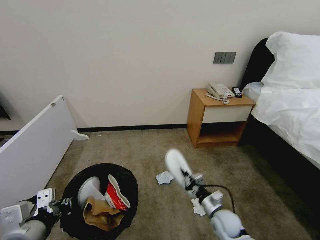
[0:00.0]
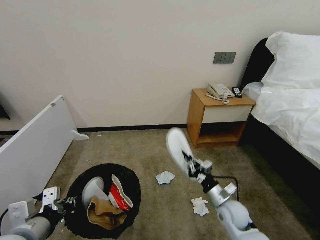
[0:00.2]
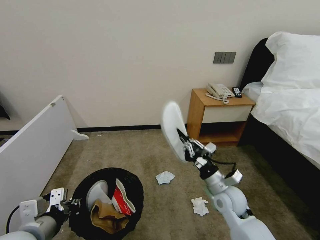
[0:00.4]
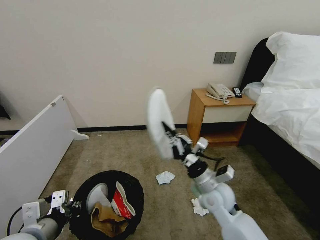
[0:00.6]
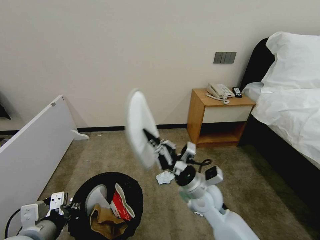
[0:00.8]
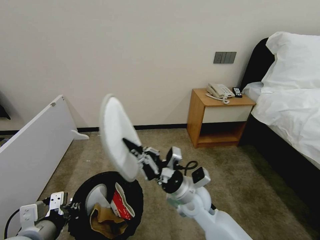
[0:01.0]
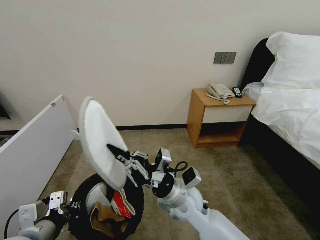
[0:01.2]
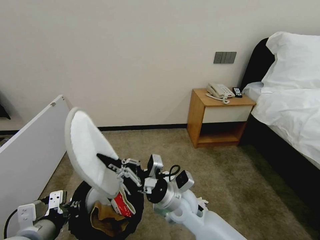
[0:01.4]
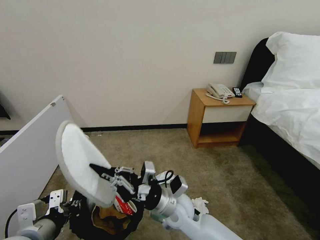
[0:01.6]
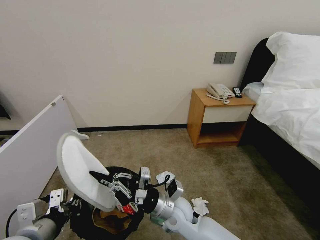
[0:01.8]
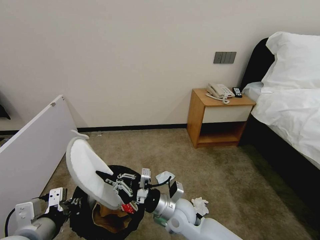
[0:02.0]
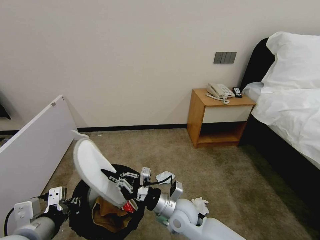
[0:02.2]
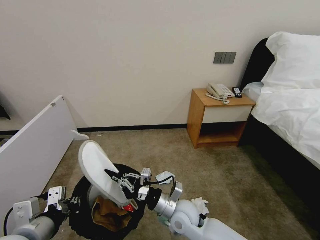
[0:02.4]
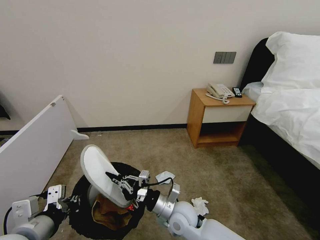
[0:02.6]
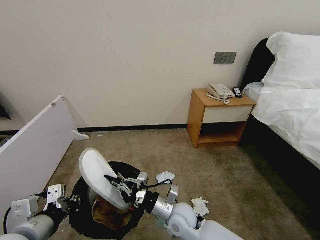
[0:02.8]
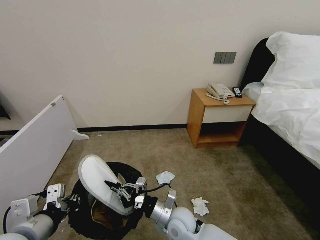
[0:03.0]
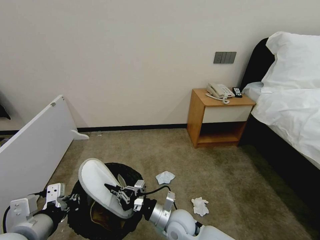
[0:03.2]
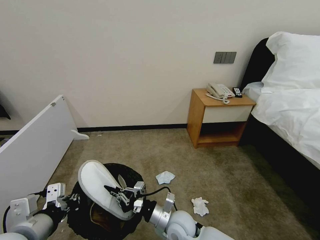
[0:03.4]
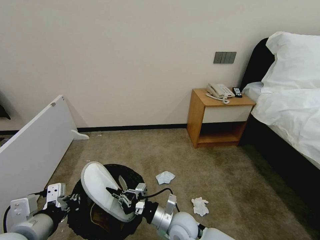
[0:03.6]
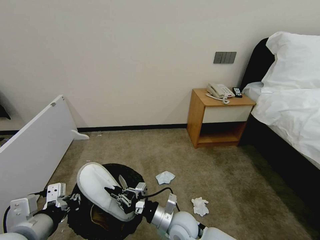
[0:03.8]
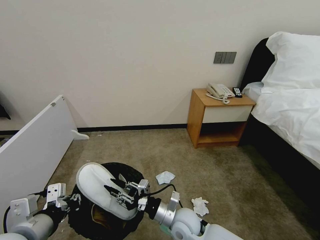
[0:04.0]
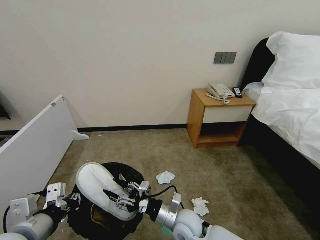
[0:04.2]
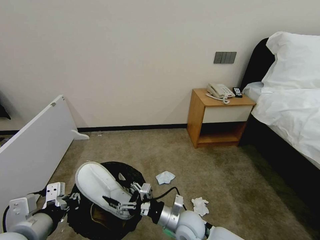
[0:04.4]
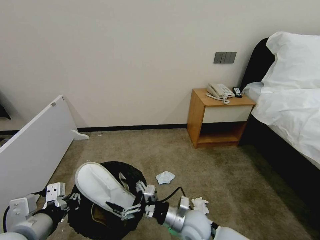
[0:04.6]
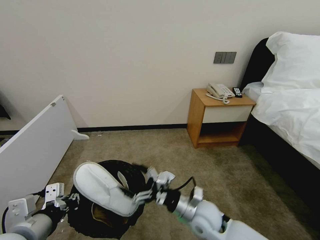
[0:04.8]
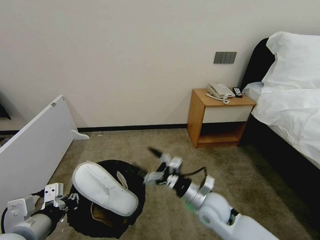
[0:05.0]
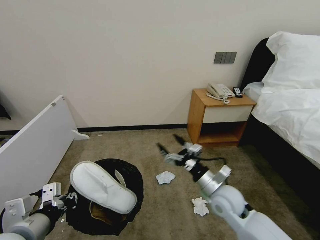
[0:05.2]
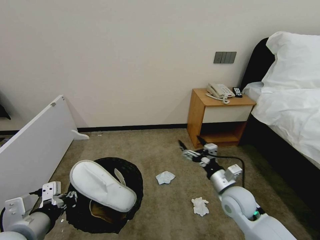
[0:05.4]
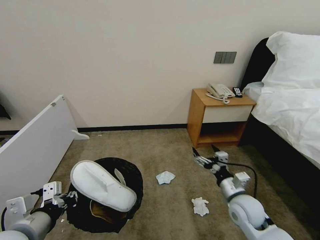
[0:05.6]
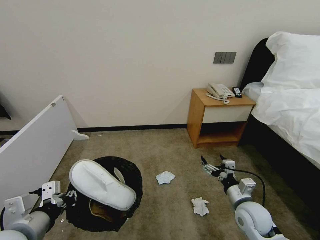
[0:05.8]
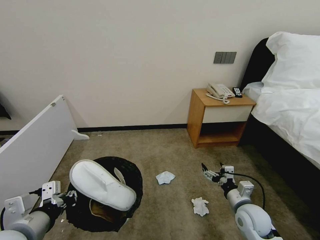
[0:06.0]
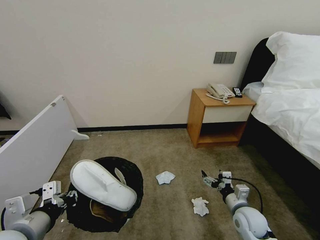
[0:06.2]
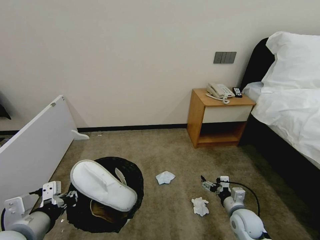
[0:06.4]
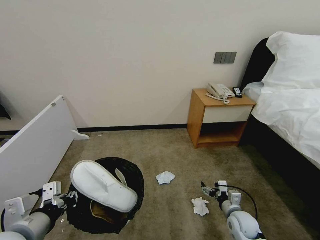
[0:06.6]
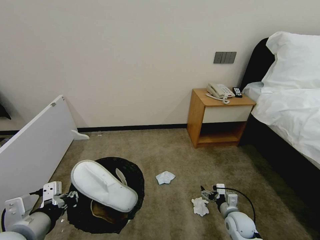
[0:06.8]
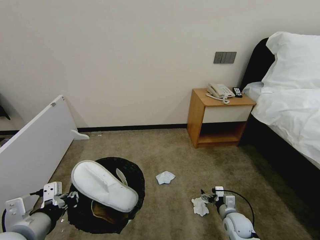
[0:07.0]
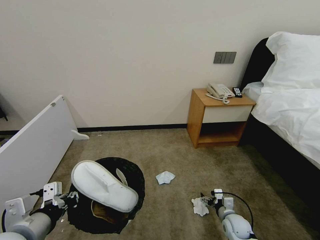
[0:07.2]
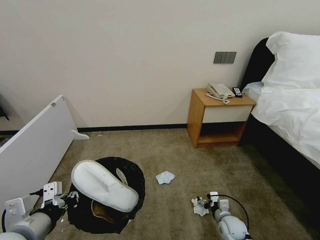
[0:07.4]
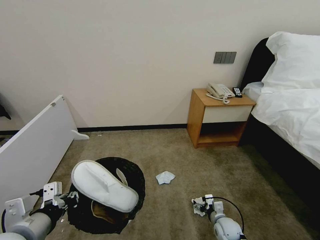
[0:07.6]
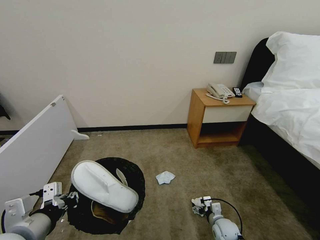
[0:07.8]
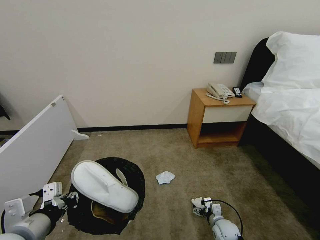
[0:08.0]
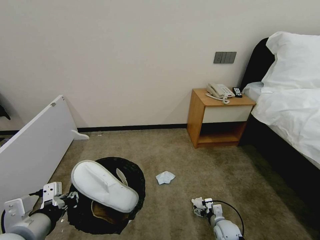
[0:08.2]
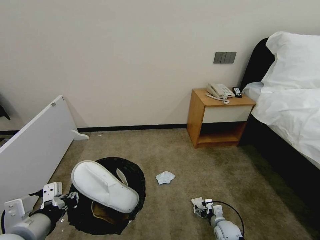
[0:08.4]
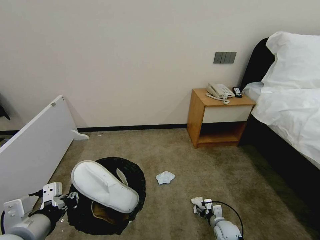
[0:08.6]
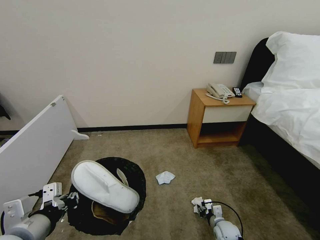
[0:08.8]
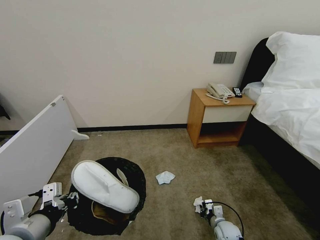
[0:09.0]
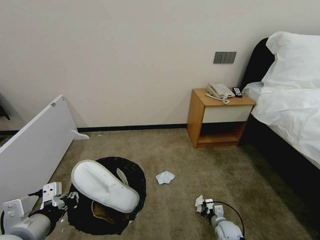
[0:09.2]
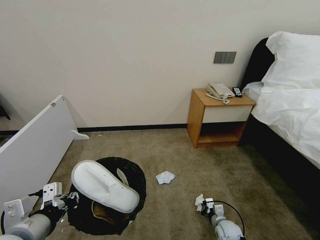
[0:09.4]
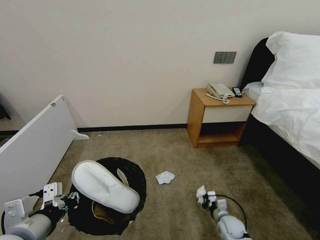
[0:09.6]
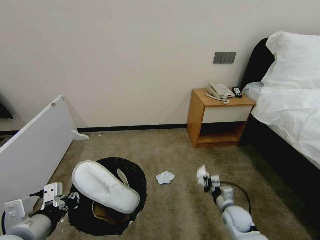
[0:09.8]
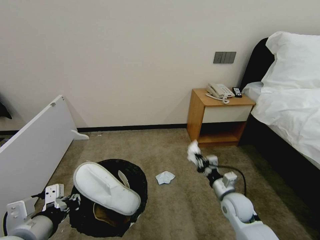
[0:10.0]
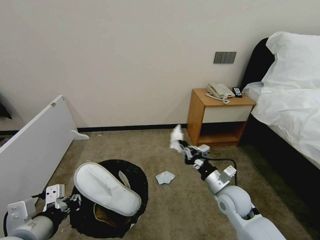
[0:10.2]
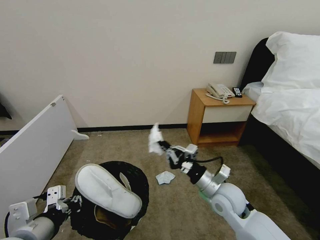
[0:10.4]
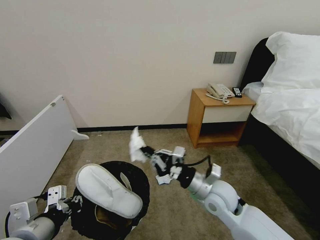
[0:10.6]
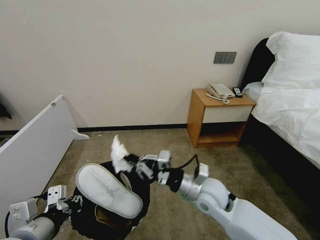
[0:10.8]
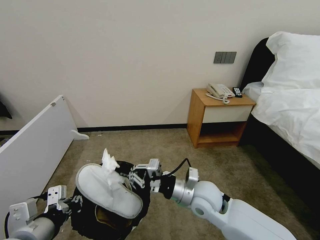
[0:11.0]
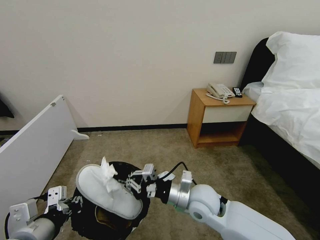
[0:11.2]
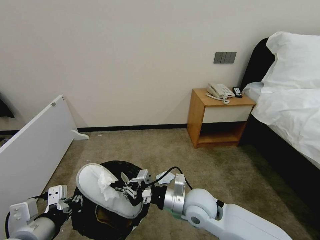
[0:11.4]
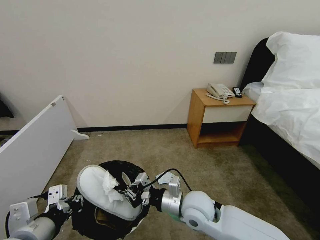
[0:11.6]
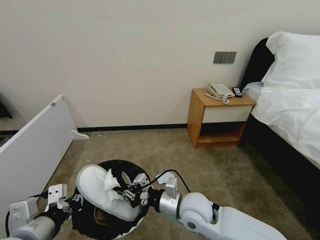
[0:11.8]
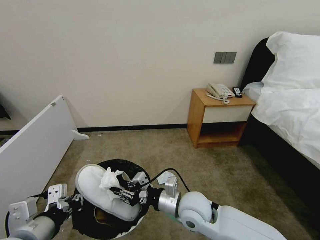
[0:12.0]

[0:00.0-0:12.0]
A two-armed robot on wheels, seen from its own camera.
Task of the whole recording: Pick up the trash bin, then pick up the garbage from the floor and place it into the trash bin.
0:00.0 to 0:01.6: The right gripper travels to the left and upward by about 25 cm.
0:01.6 to 0:03.0: The right gripper moves downward, about 10 cm.
0:03.0 to 0:04.4: The right gripper opens up.
0:04.4 to 0:06.0: The right gripper shifts about 20 cm to the right.
0:06.0 to 0:07.6: The right gripper heads downward, covering roughly 15 cm.
0:07.6 to 0:09.0: The right gripper closes its fingers.
0:09.0 to 0:10.4: The right gripper shifts about 30 cm upward.
0:10.4 to 0:12.0: The right gripper moves to the left, roughly 10 cm.

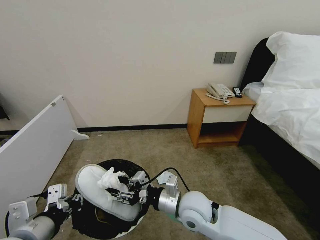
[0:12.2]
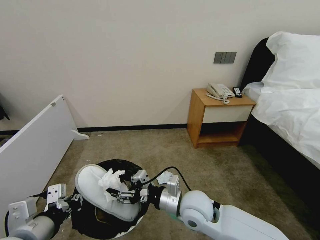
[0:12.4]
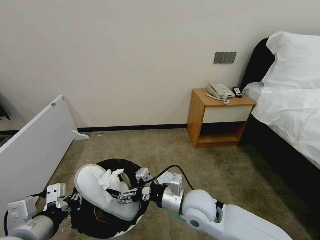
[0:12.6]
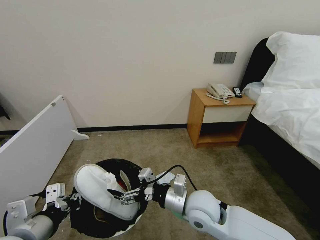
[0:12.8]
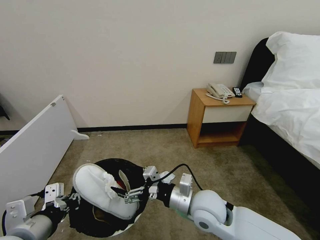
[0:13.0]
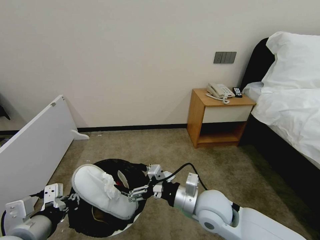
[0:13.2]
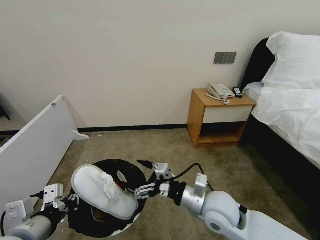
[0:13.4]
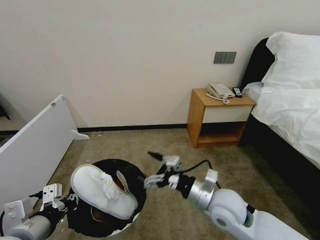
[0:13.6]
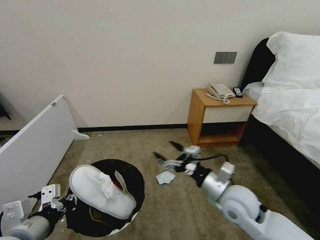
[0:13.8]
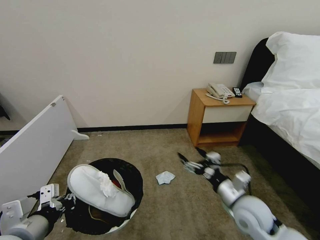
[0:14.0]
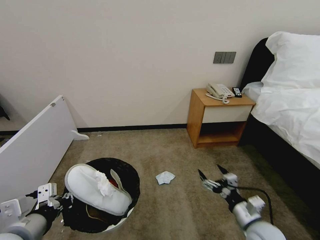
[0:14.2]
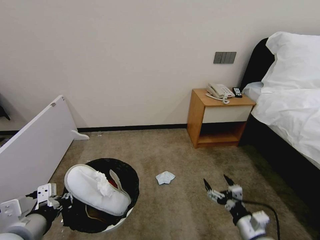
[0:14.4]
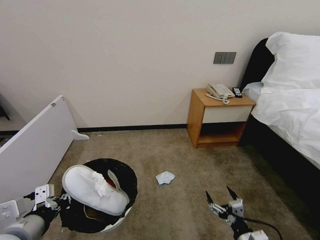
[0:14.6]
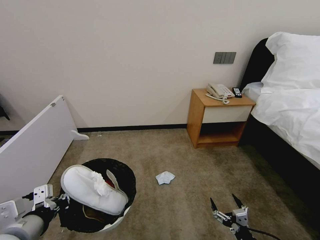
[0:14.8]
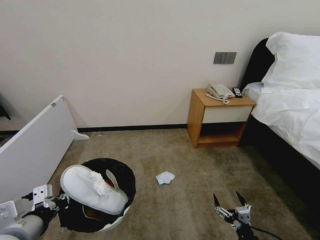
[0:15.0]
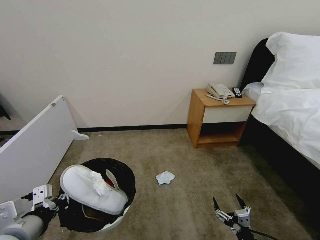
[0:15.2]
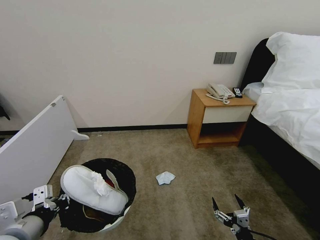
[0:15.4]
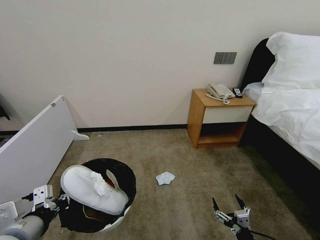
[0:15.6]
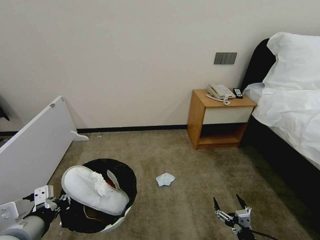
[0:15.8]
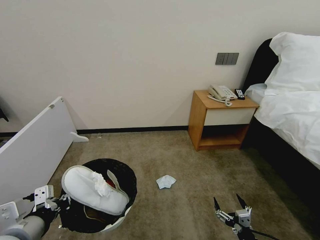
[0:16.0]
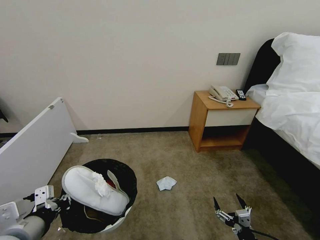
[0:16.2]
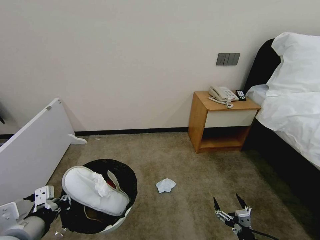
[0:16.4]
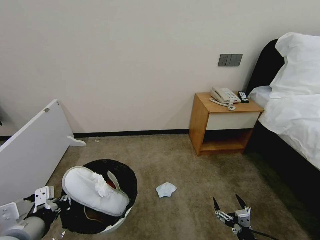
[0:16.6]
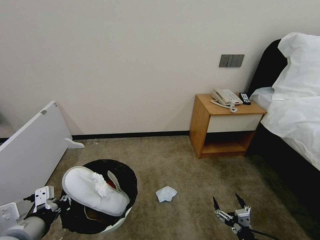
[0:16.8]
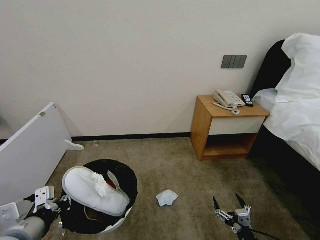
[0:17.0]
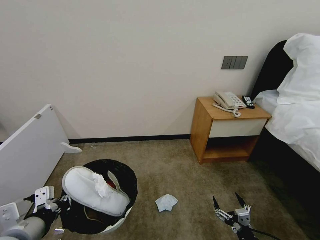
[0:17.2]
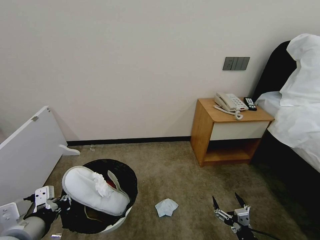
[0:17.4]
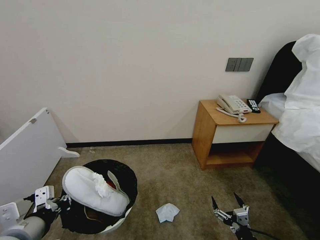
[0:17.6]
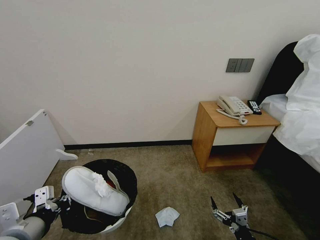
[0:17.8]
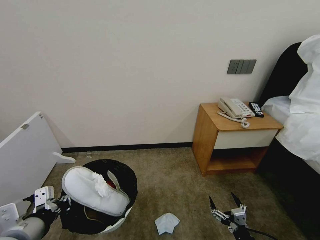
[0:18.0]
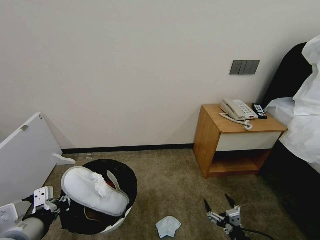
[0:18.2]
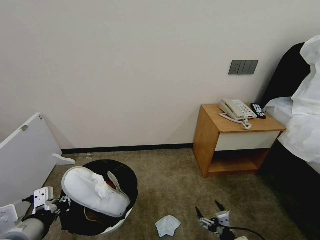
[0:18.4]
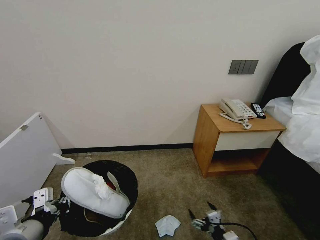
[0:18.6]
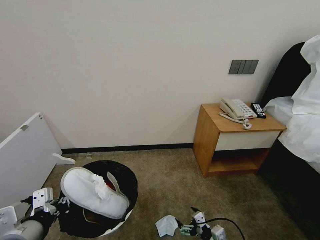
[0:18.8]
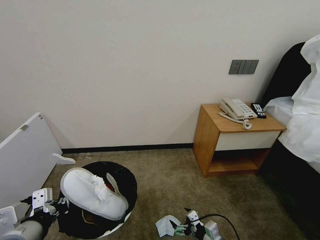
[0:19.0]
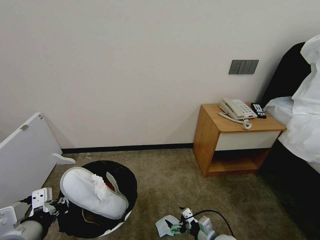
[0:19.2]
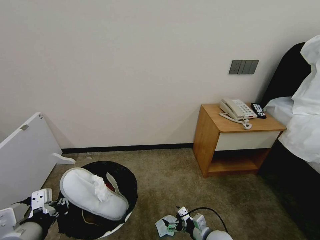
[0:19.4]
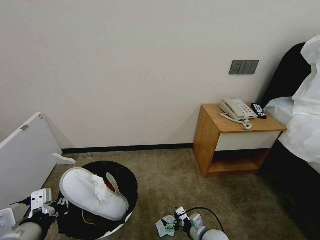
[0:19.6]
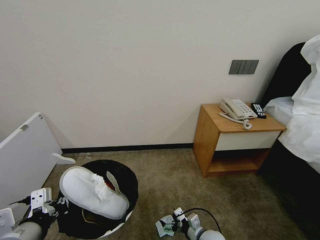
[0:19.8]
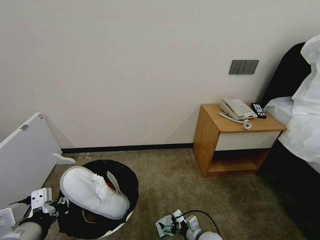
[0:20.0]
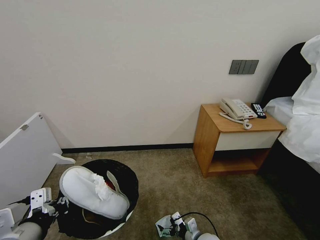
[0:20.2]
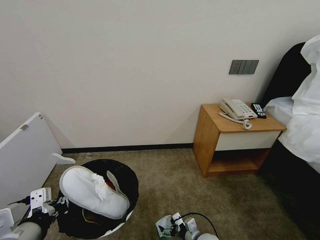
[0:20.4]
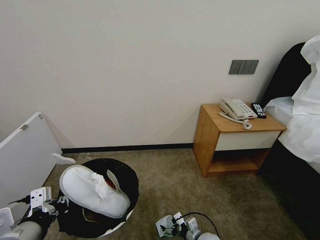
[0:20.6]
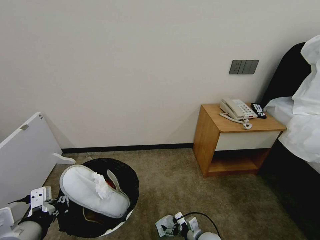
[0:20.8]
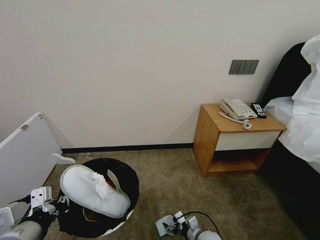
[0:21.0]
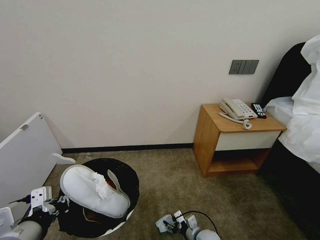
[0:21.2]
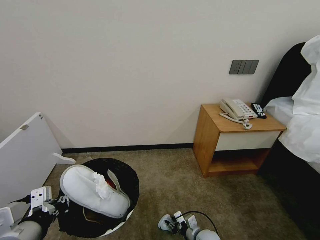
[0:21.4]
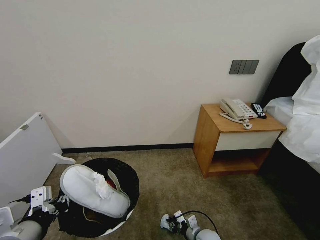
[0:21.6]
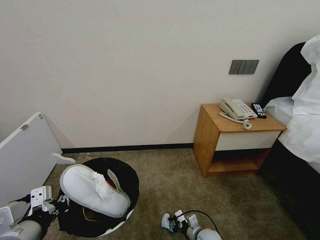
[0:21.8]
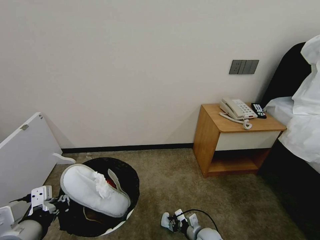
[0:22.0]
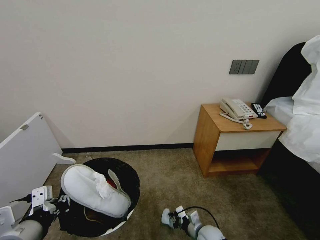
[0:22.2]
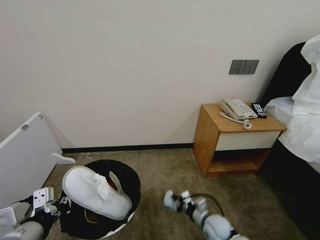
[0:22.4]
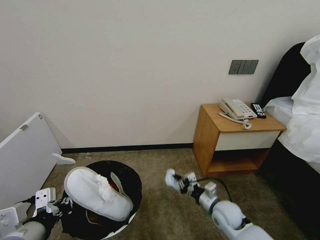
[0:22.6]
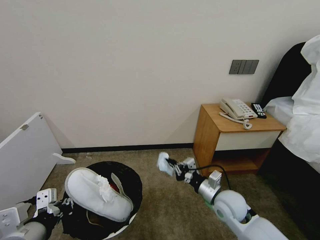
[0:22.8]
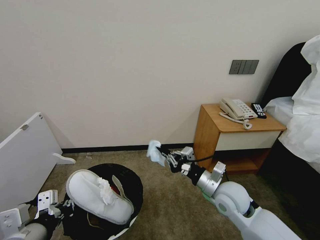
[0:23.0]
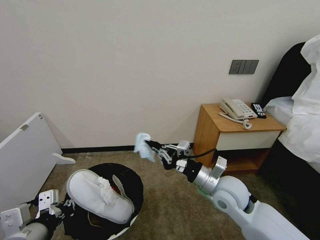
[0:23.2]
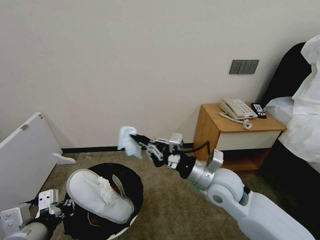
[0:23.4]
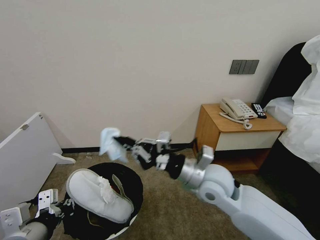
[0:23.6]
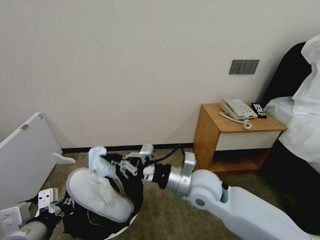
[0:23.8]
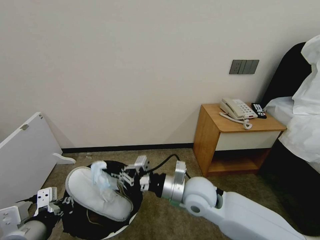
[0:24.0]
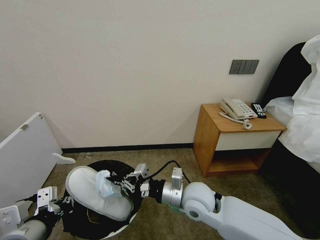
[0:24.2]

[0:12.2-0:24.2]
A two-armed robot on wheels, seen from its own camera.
Task of the whole recording: Pick up the trash bin, then pick up the garbage from the floor and place it into the trash bin.
0:12.2 to 0:13.8: The right gripper goes approximately 15 cm to the right, and opens up.
0:13.8 to 0:15.2: The right gripper moves downward, backward and to the right, approximately 25 cm.
0:15.2 to 0:16.6: Both grippers stay put.
0:18.2 to 0:19.8: The right gripper is displaced forward, to the left and downward by approximately 15 cm.
0:19.8 to 0:21.2: The right gripper moves approximately 5 cm, and closes its fingers.
0:21.2 to 0:22.6: The right gripper moves upward, about 15 cm, and closes its fingers.
0:22.6 to 0:24.2: The right gripper moves upward and to the left, approximately 20 cm.
